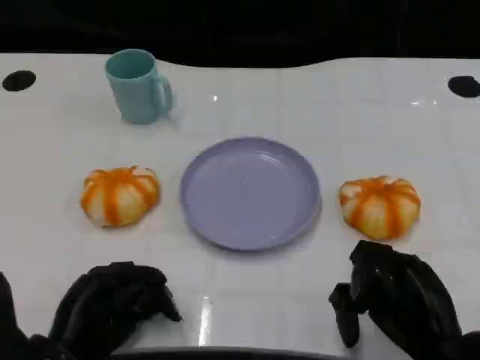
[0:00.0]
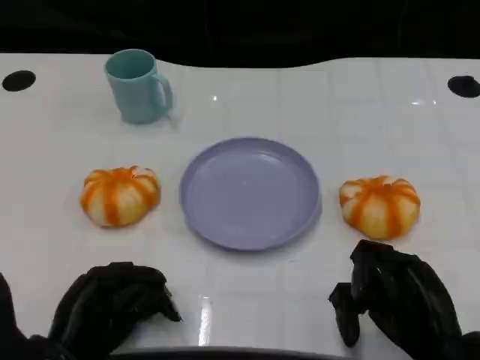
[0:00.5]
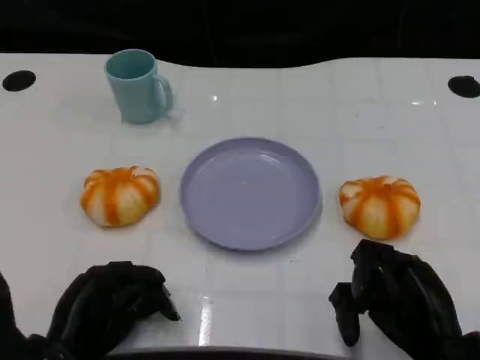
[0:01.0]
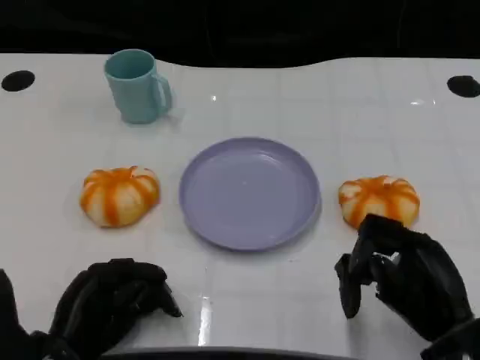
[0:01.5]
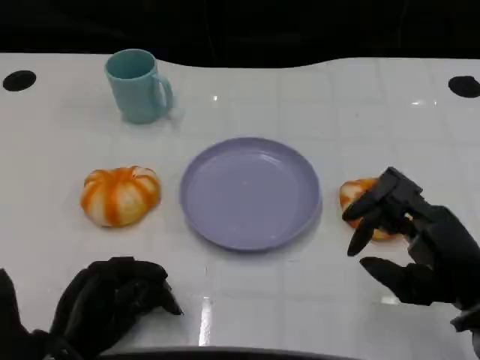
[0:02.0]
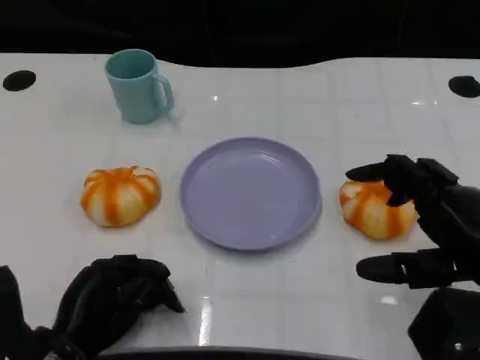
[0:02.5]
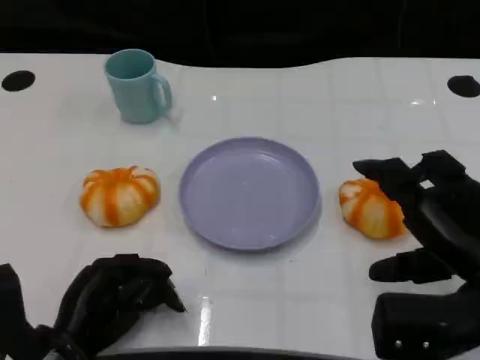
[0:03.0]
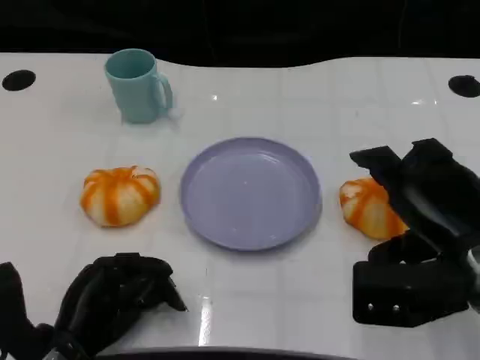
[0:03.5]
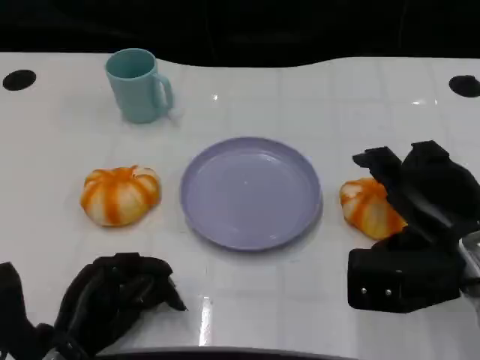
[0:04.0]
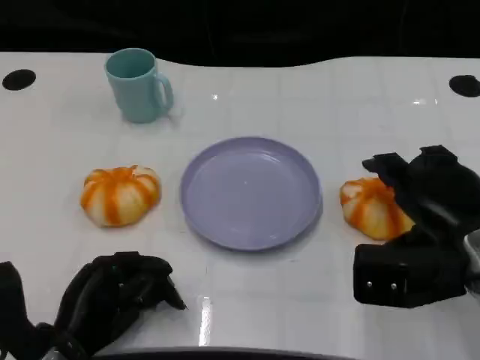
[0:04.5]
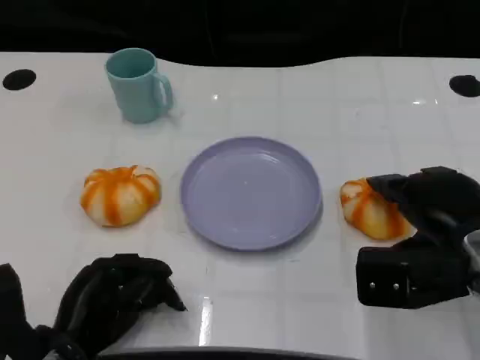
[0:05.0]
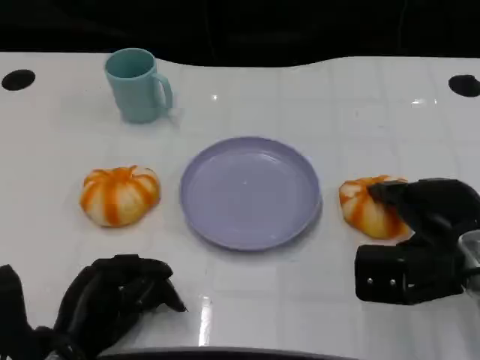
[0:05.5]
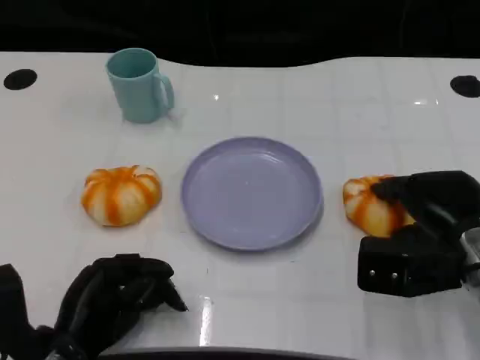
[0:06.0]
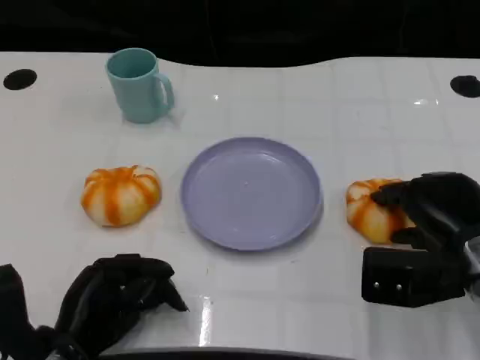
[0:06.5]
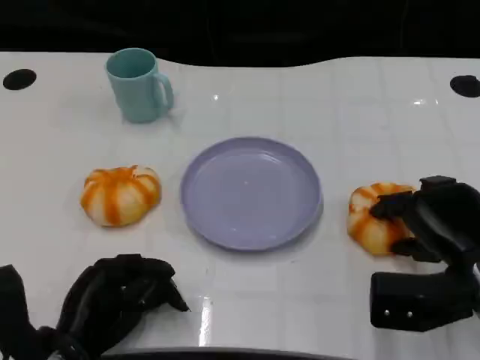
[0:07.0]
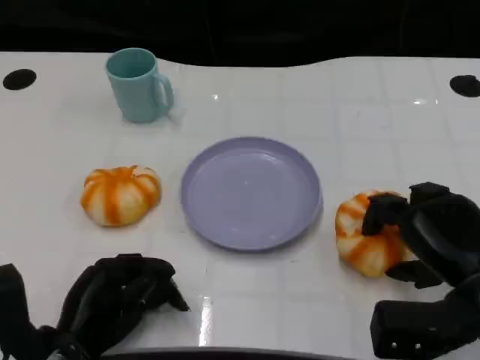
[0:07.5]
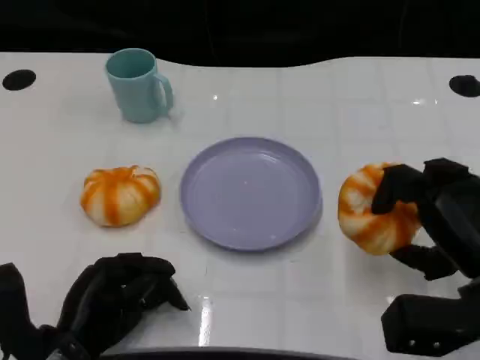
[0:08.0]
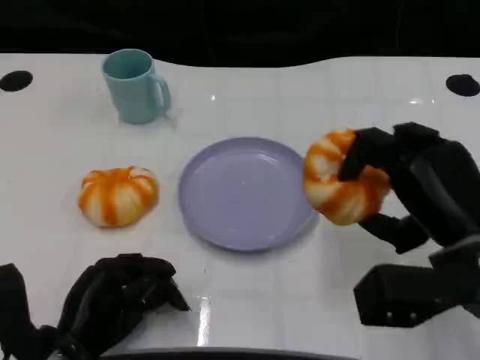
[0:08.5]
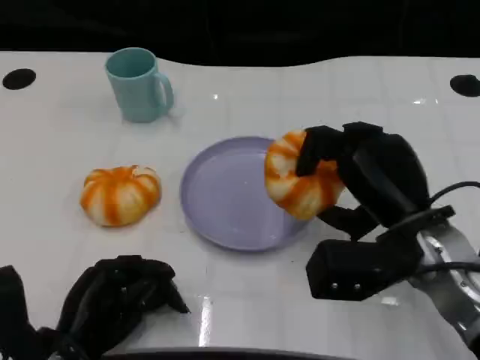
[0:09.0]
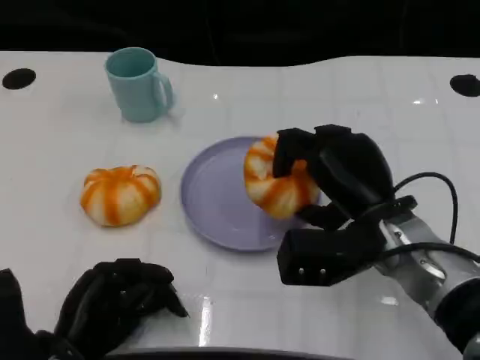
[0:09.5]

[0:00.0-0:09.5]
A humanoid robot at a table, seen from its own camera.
Task of the whole recording: Grasp the bread from the table and place it into the plate.
0:00.0 to 0:02.0: The right hand moves upward, roughly 5 cm.
0:02.0 to 0:04.0: The right hand is displaced forward by some 5 cm.
0:04.0 to 0:05.5: There are only small adjustments of the hands.
0:07.5 to 0:09.5: The right hand is displaced to the left and forward by roughly 10 cm.

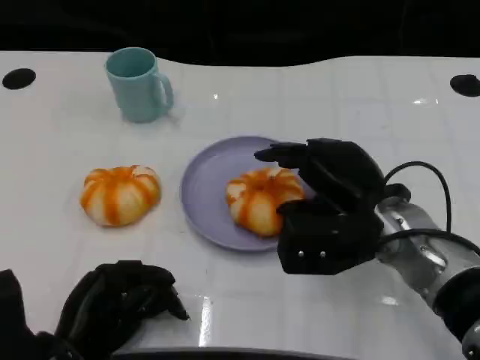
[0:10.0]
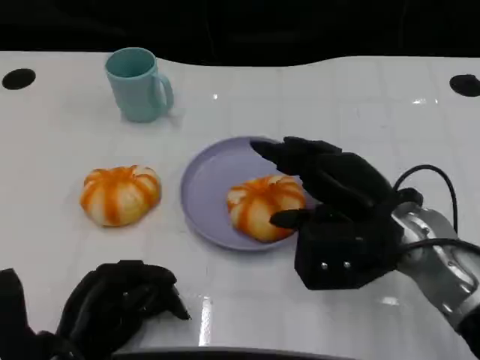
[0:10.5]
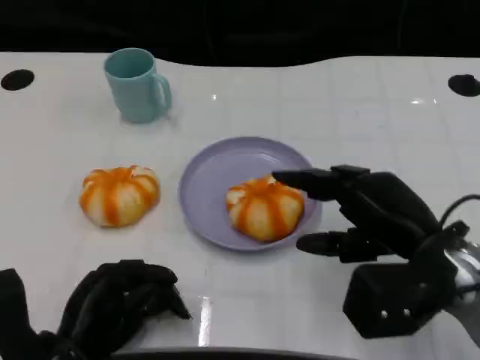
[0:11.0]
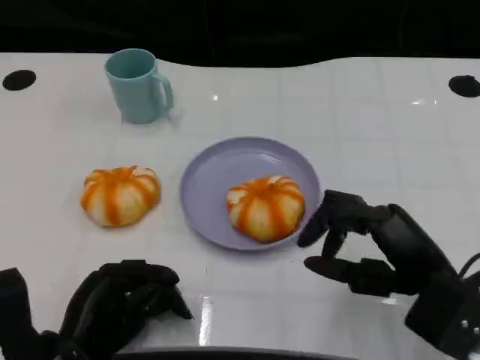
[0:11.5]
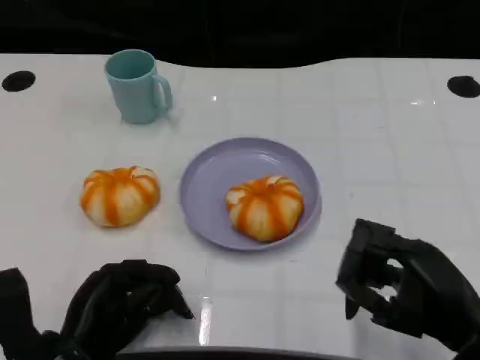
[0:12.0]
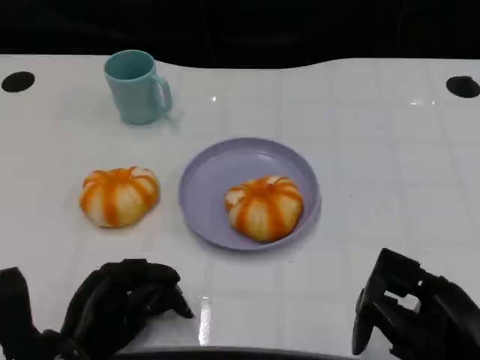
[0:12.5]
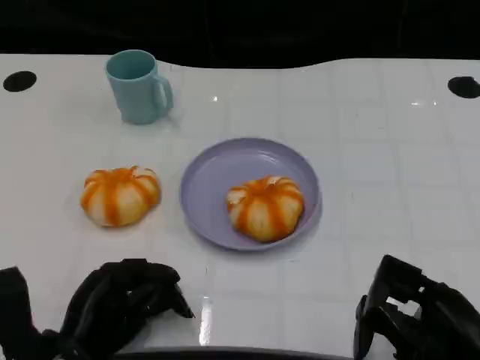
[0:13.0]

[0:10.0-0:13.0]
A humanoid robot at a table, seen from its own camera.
Task of the whole recording: Grasp the bread from the table and place it into the plate.
0:10.0 to 0:11.5: The right hand travels backward and to the right by approximately 10 cm.
0:11.5 to 0:13.0: The right hand shifts roughly 5 cm backward.

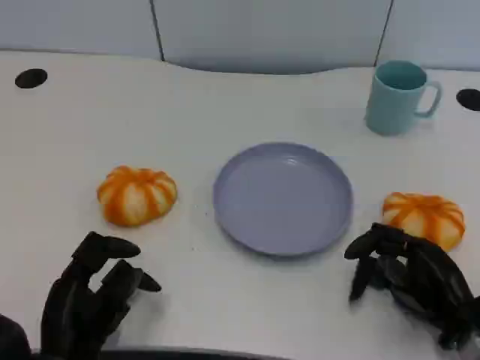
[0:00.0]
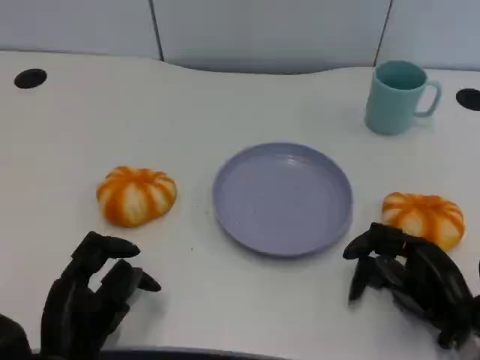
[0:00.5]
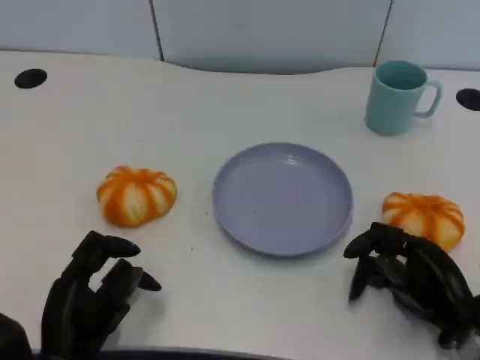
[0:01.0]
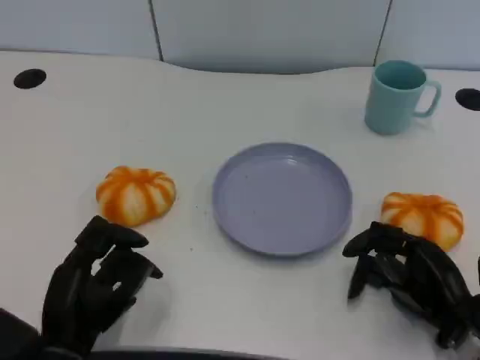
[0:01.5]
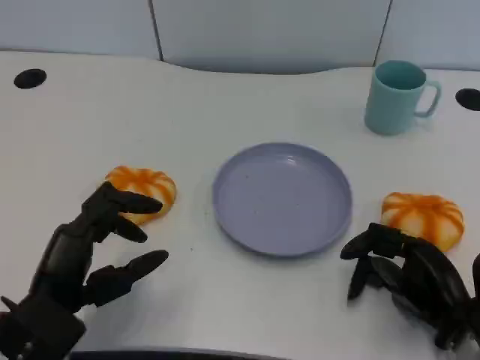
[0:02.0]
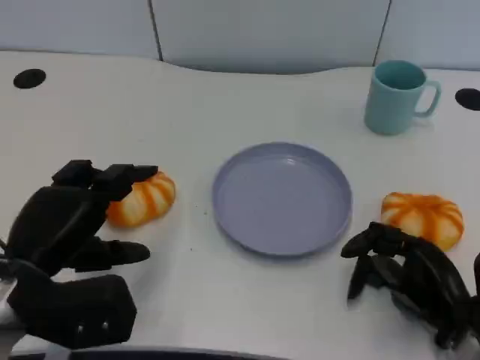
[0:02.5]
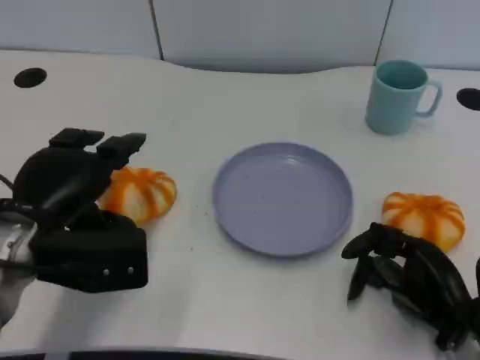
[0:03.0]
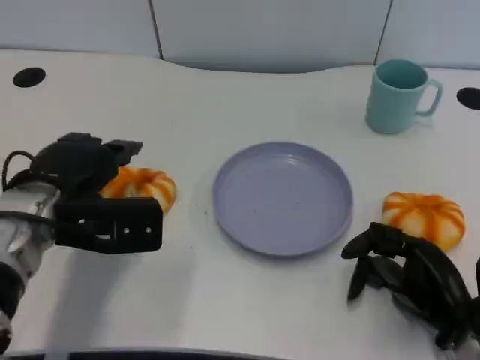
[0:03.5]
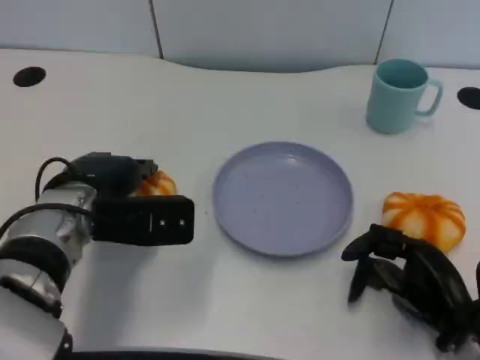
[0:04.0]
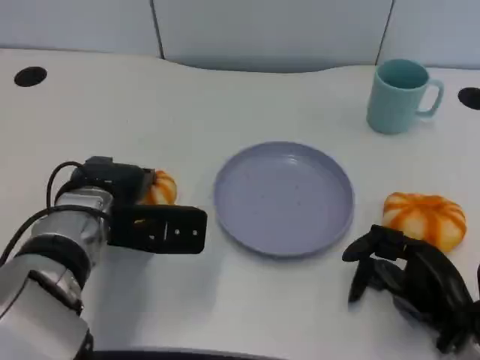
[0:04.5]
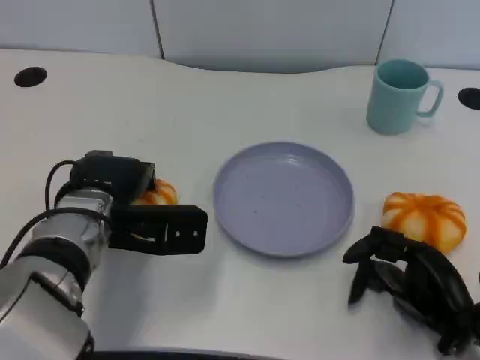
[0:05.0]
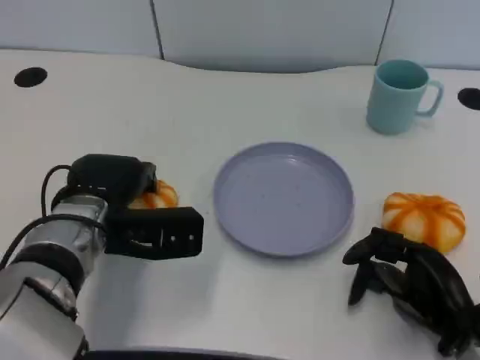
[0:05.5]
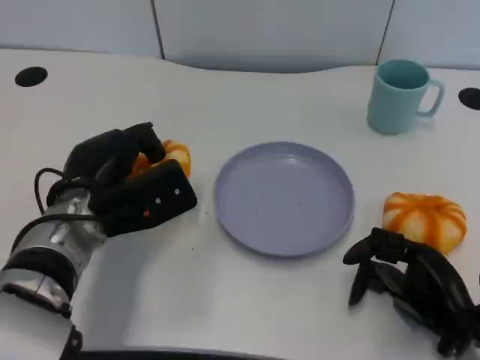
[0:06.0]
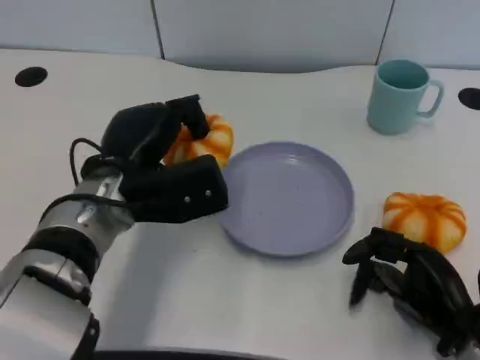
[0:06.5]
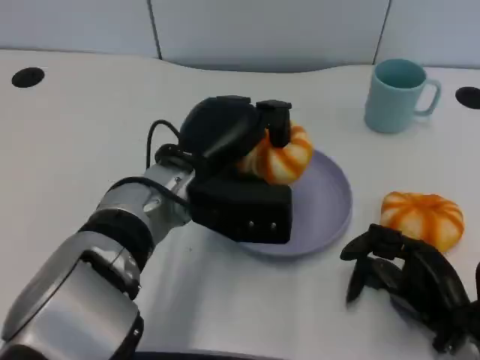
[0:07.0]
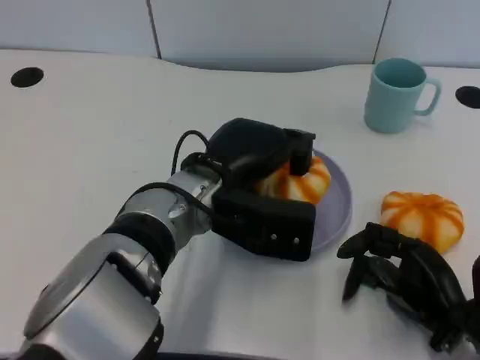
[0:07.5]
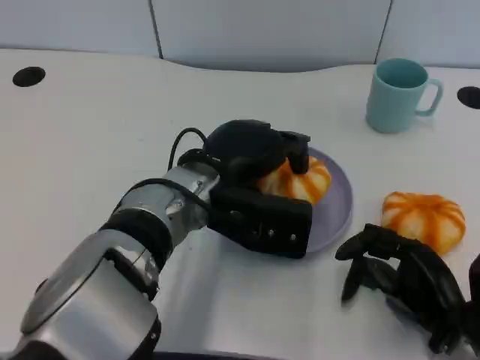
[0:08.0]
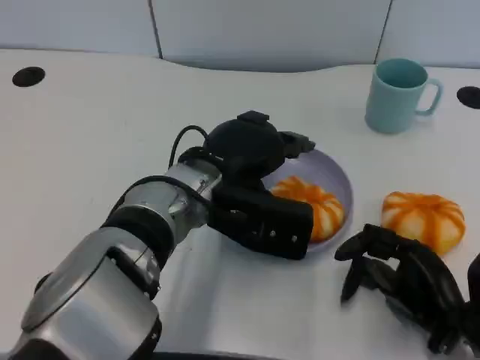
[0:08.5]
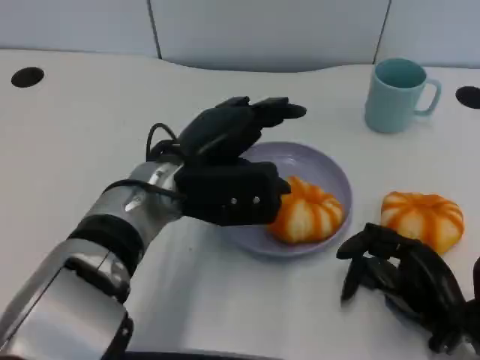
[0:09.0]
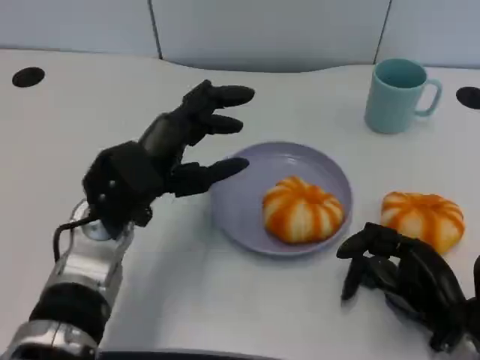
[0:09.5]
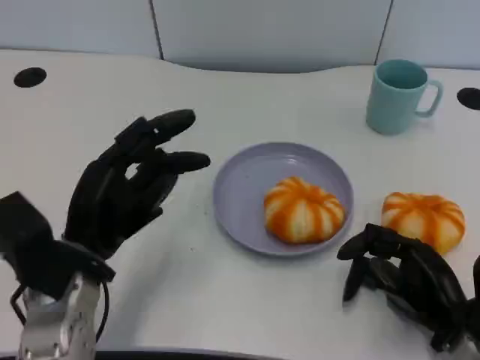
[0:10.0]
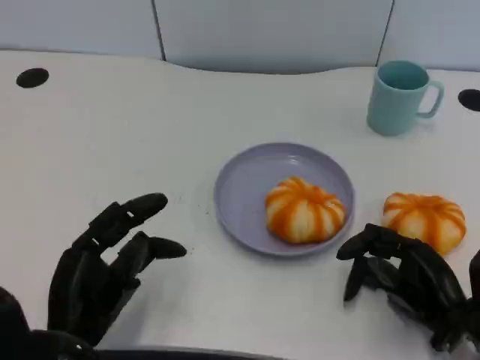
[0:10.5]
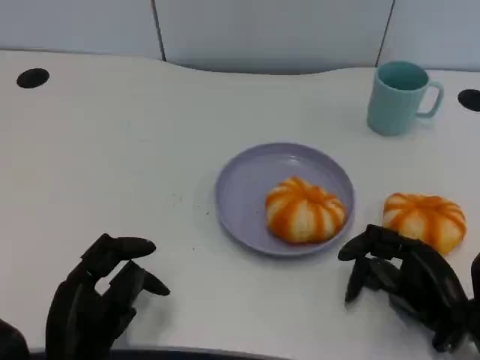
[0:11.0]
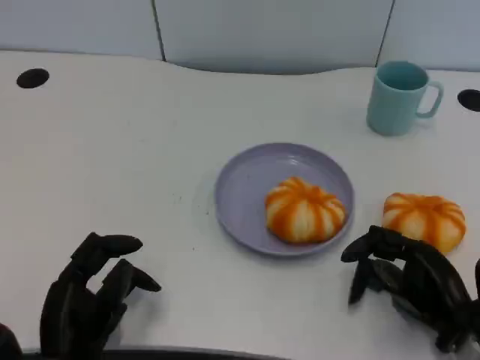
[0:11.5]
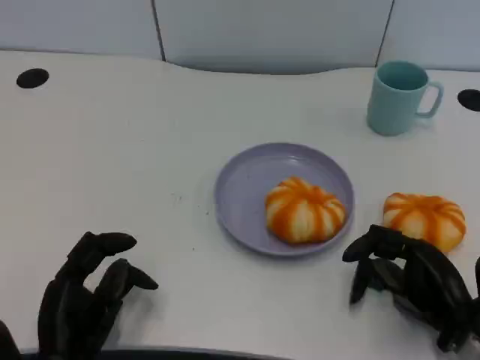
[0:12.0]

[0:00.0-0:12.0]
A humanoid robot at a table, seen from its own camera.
Task of the whole recording: Grasp the bread from the table and place it into the plate.
0:00.0 to 0:02.0: The left hand goes roughly 5 cm upward.
0:02.0 to 0:04.0: The left hand goes some 10 cm forward.
0:06.0 to 0:08.0: The left hand shifts roughly 10 cm to the right.
0:08.0 to 0:10.0: The left hand travels to the left and backward by approximately 15 cm.
0:10.0 to 0:12.0: The left hand is displaced downward and backward by some 10 cm.

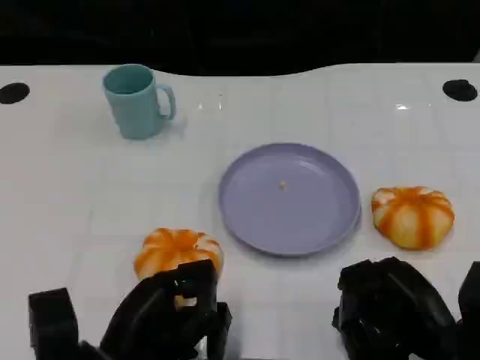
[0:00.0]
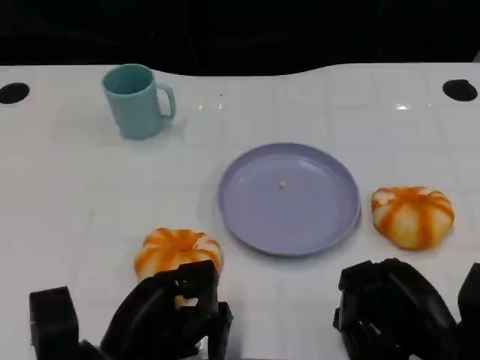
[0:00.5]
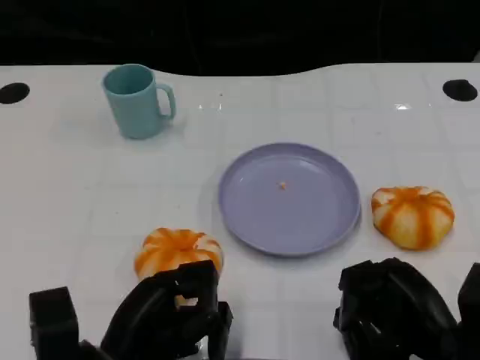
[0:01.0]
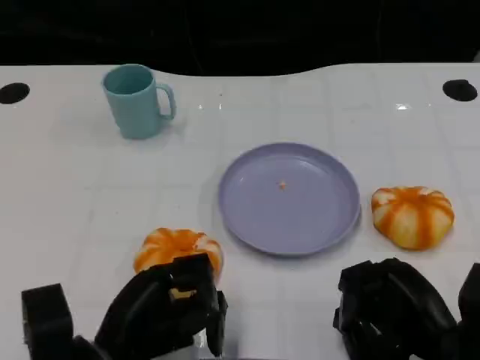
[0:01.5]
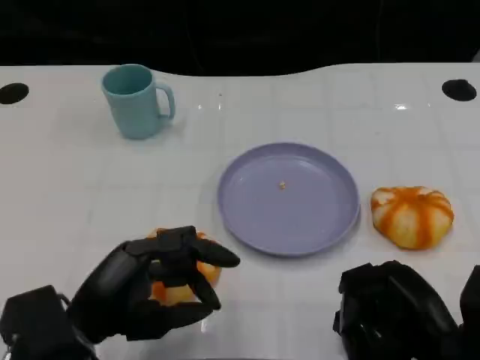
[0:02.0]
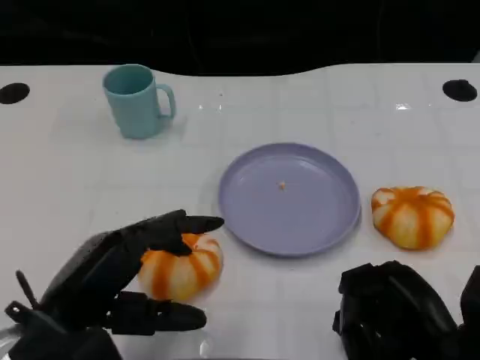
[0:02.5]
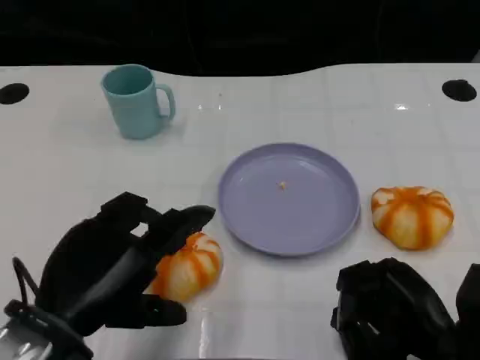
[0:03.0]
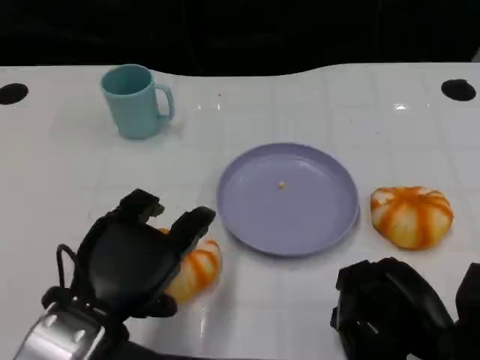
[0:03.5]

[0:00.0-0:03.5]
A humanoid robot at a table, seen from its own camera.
Task of the whole recording: Grasp the bread from the table and place it into the plate.
0:00.0 to 0:02.0: The left hand shifts roughly 5 cm upward.
